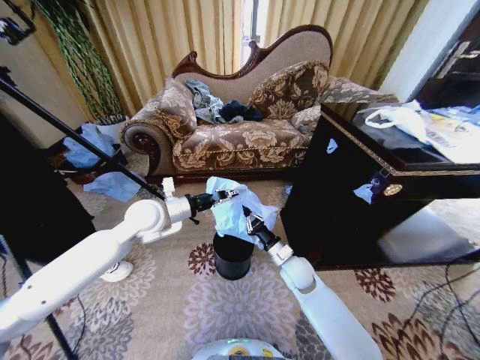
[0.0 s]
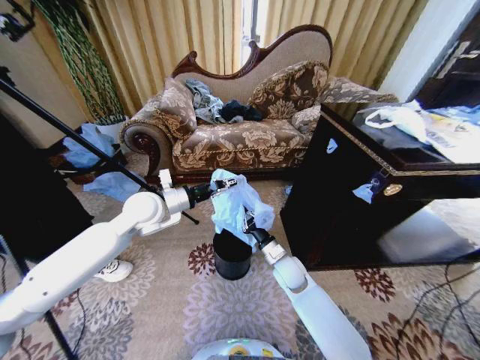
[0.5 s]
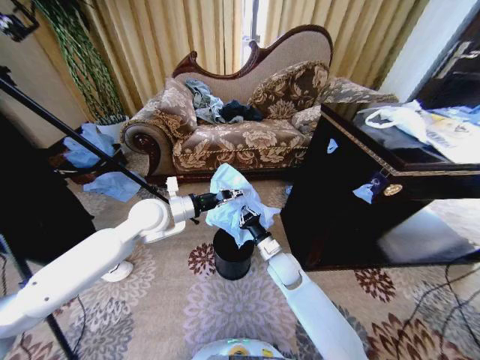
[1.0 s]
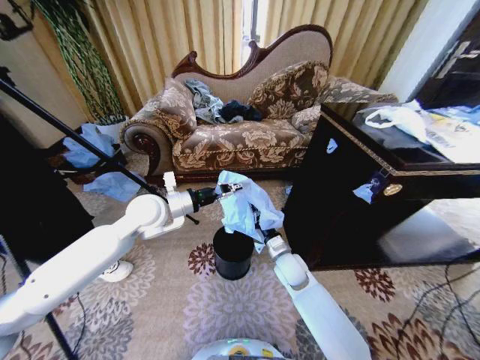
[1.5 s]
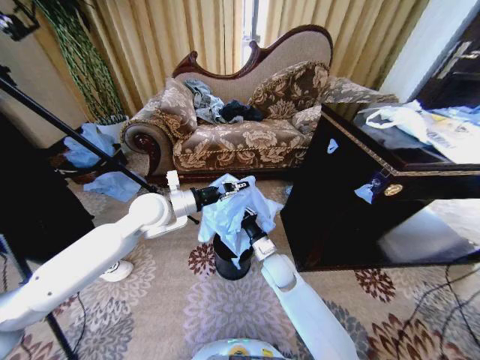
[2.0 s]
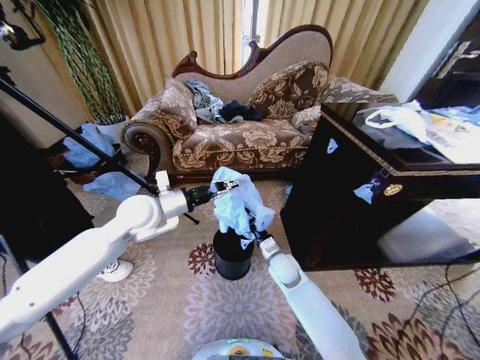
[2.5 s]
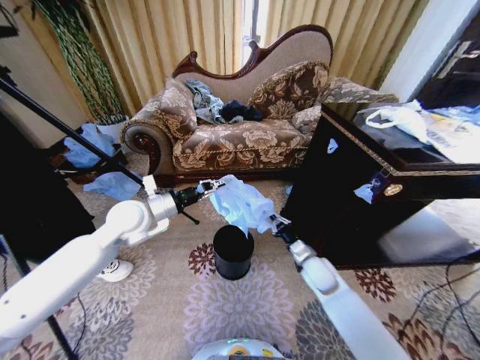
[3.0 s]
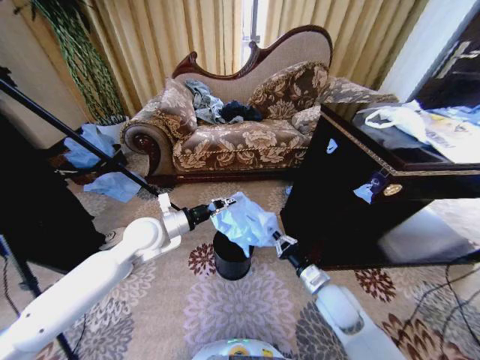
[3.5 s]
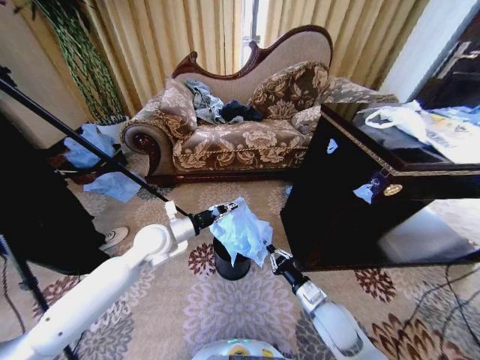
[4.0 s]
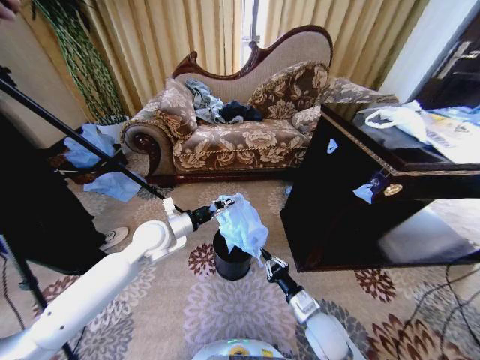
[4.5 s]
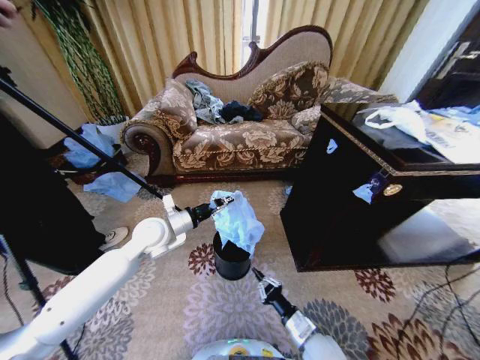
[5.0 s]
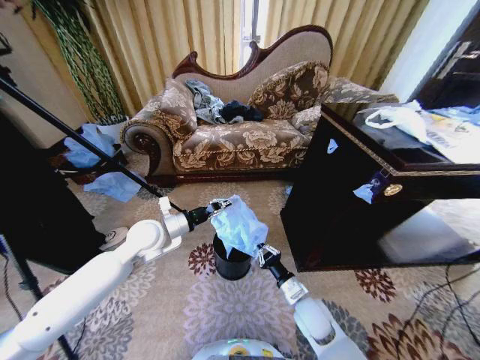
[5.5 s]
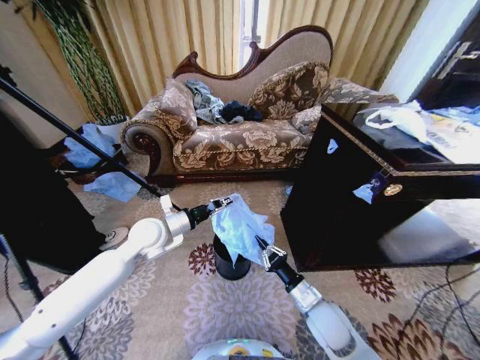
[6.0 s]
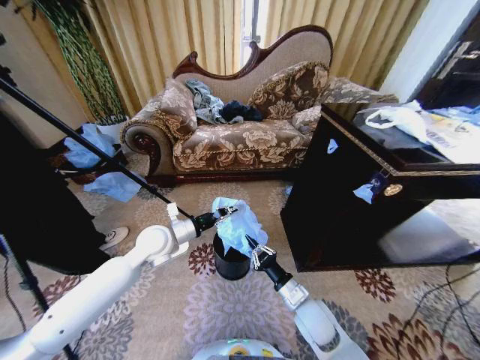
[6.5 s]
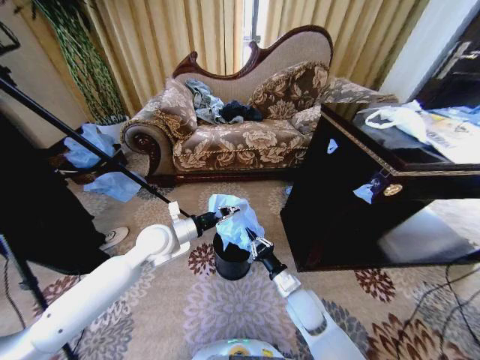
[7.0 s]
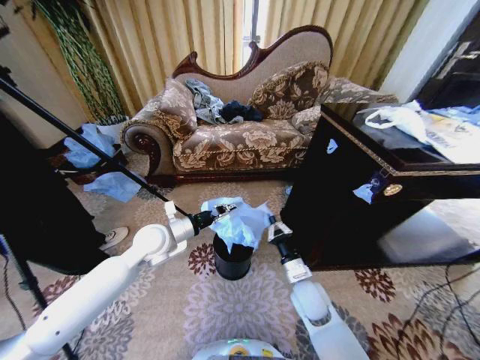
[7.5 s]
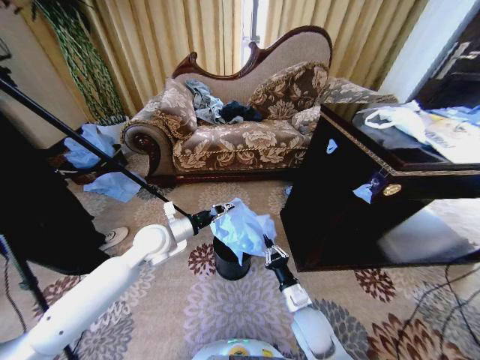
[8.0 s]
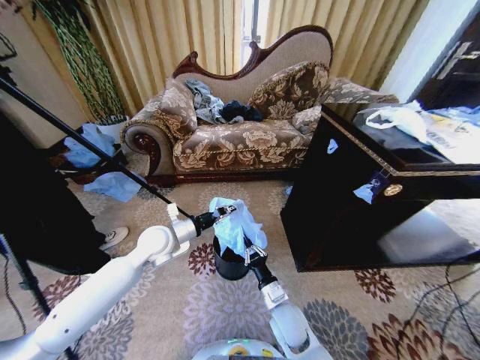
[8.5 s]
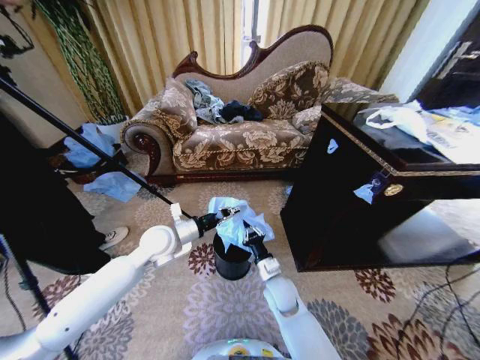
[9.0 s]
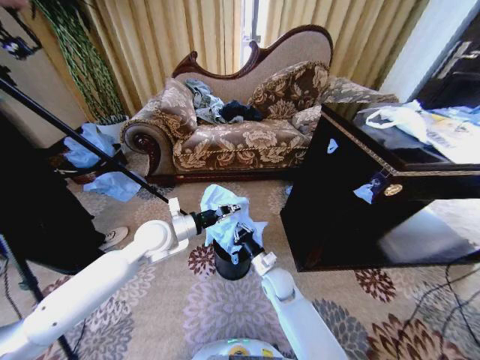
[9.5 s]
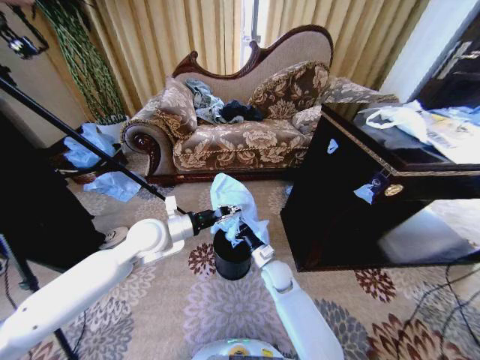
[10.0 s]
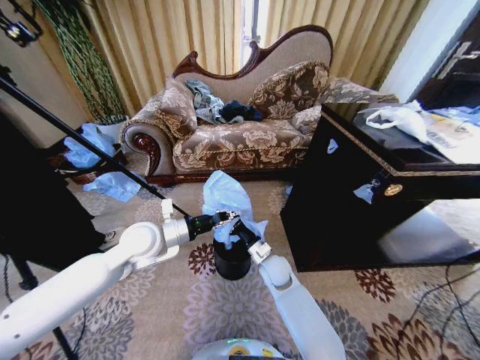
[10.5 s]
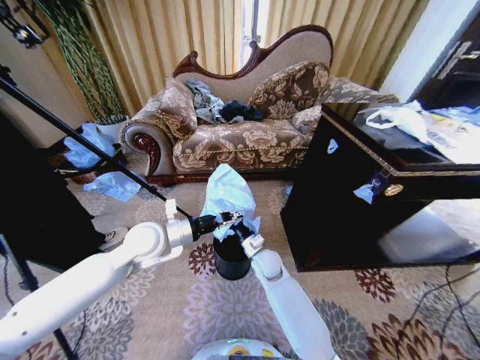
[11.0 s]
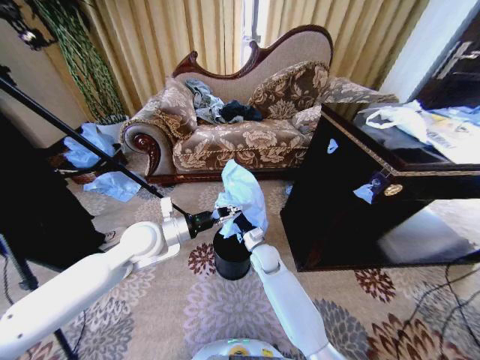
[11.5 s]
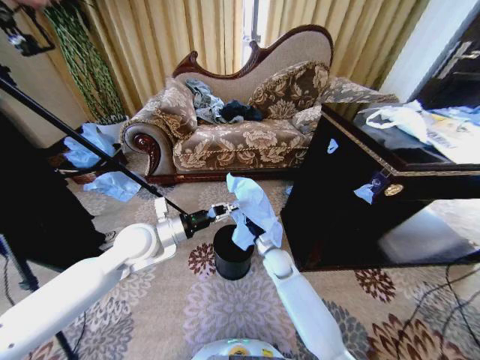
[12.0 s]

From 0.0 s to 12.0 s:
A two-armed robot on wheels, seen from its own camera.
Task of the whole recording: Place a garbage bag over the trash bin.
From 0.0 s to 2.0 s: The right gripper travels to the left by about 5 cm.
From 2.0 s to 4.0 s: The right gripper is displaced to the right and backward by roughly 20 cm; the left gripper shifts about 10 cm downward.
From 4.0 s to 6.0 s: The right gripper travels backward and back again, about 5 cm each way.
From 8.0 s to 10.0 s: The right gripper is displaced forward and to the left by about 15 cm.

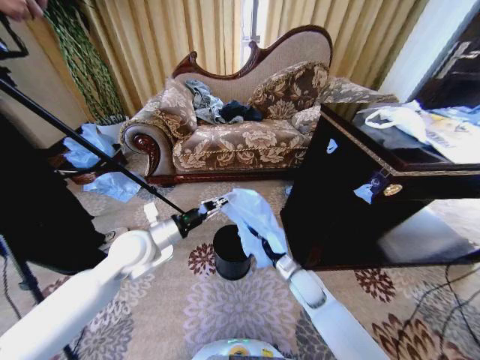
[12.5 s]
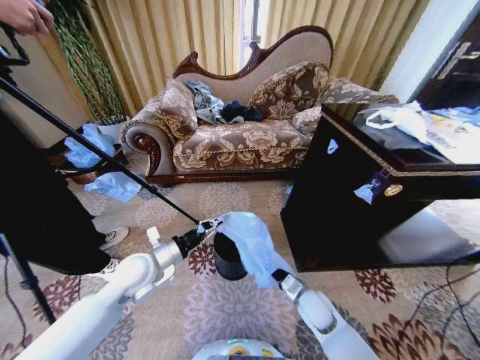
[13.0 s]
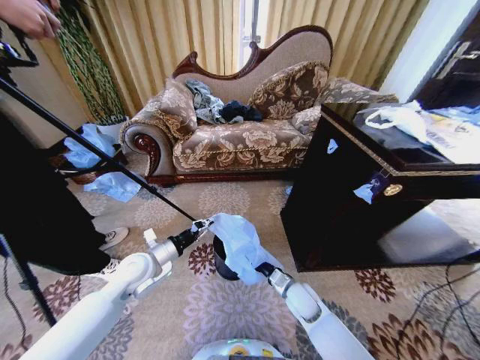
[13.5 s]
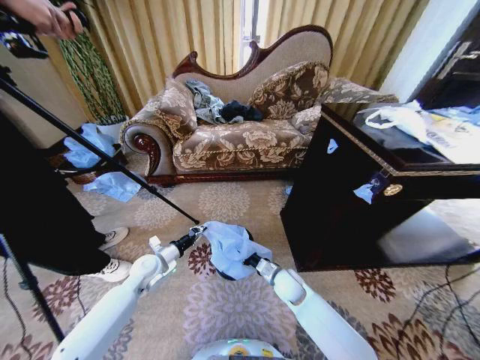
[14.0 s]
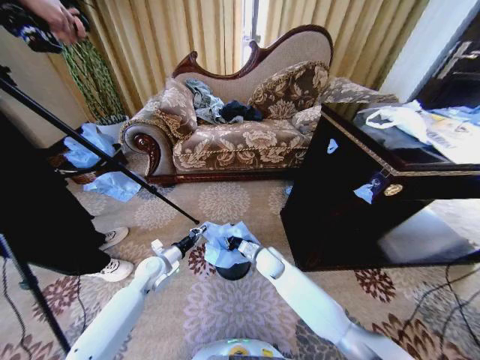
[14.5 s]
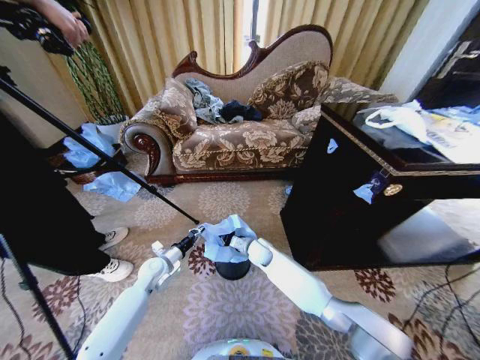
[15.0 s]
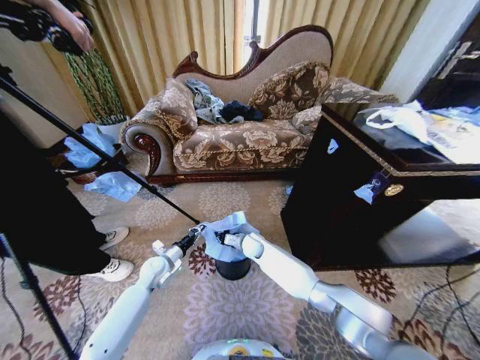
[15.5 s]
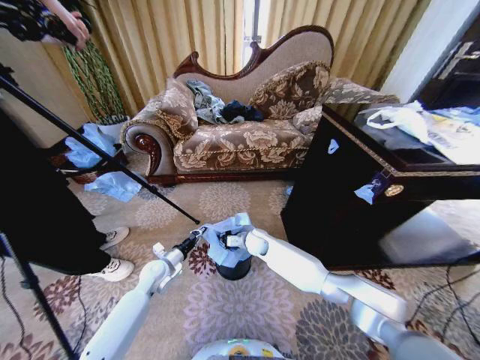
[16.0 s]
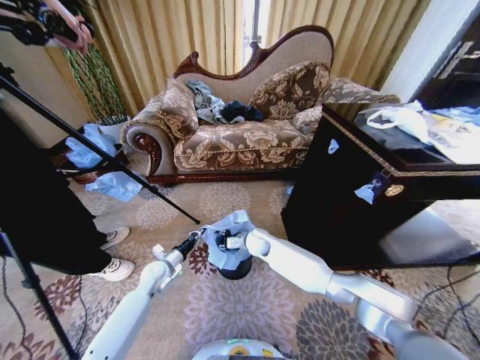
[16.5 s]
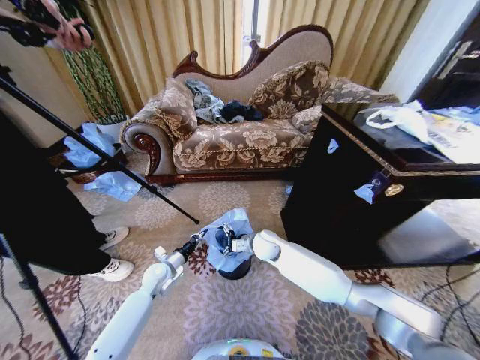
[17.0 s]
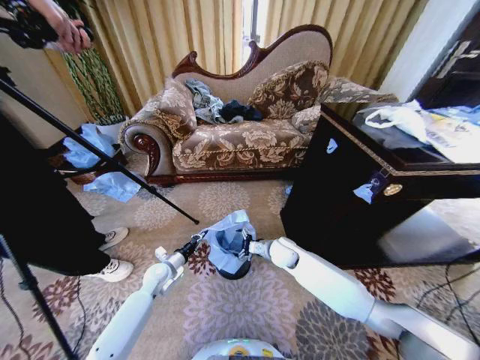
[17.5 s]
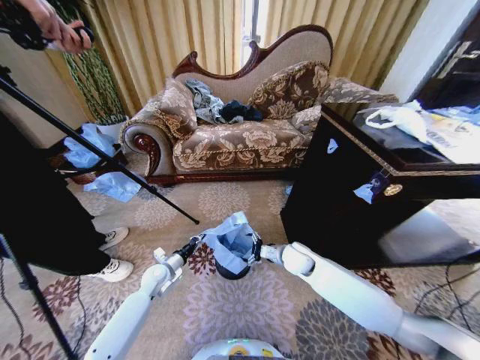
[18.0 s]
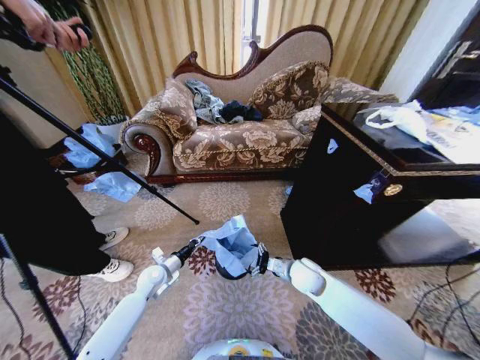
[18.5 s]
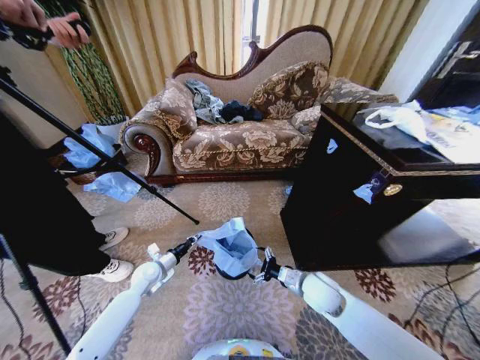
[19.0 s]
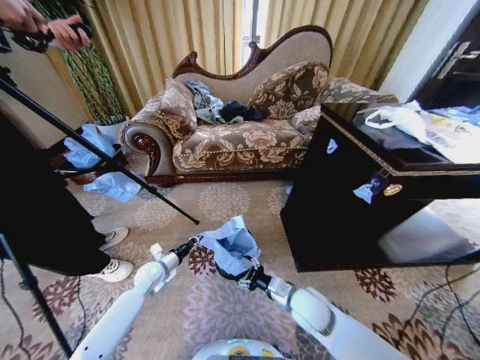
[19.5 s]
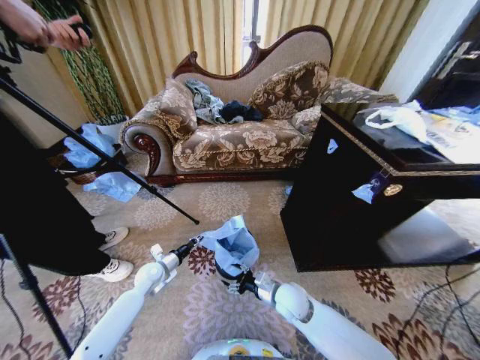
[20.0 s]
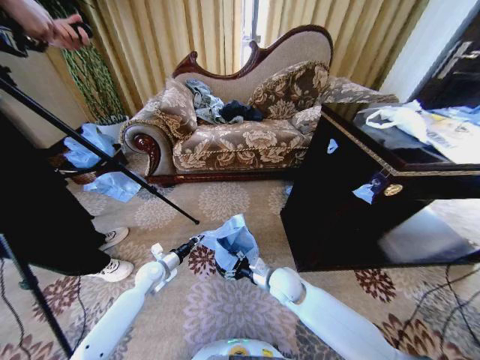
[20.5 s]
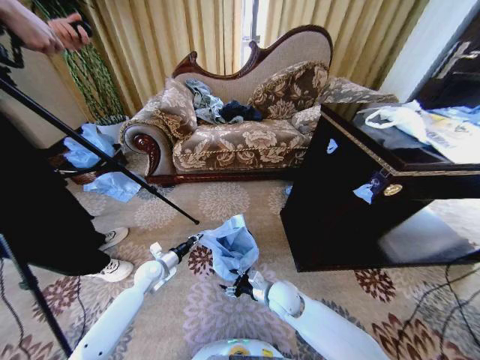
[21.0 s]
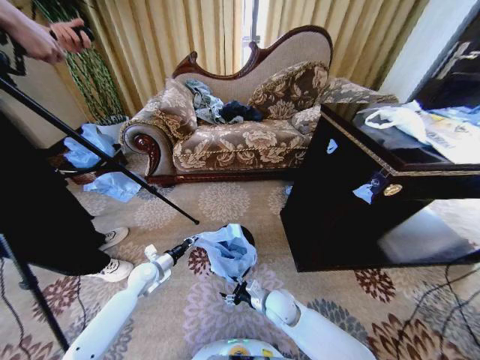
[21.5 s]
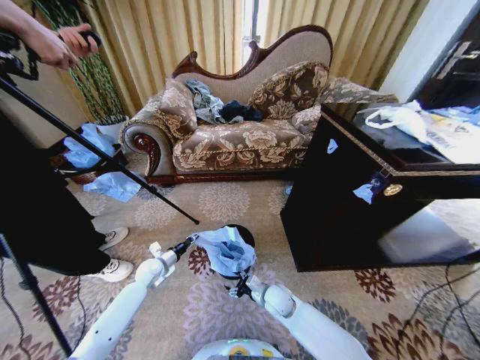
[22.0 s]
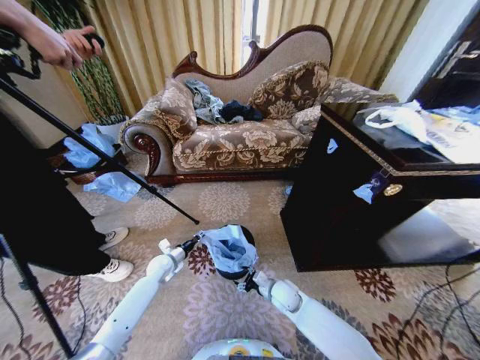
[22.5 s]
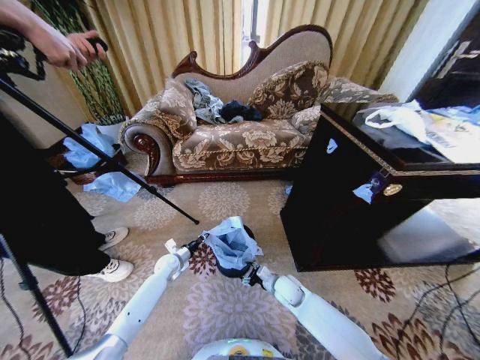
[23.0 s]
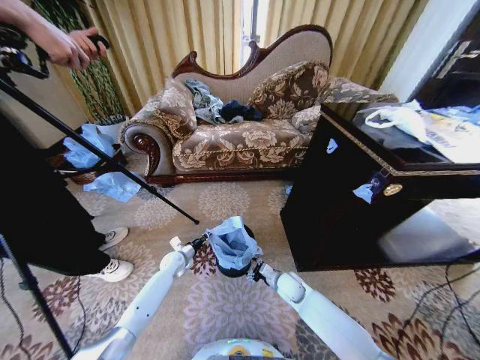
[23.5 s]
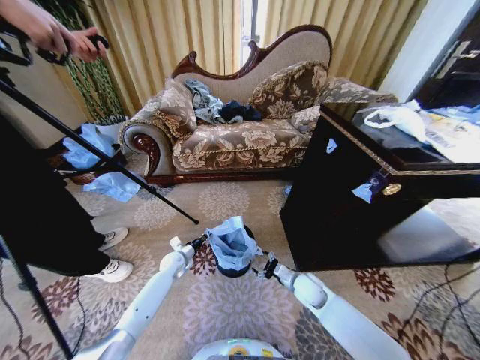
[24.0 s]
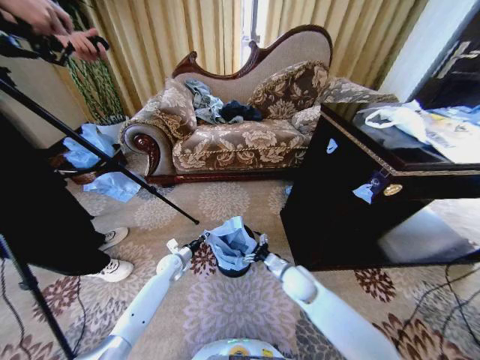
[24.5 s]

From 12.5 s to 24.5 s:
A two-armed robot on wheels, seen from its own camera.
Task of the whole recording: Place a garbage bag over the trash bin.
From 12.5 s to 14.5 s: The left gripper shifts about 20 cm downward. Meanwhile the right gripper moves to the left and forward, roughly 15 cm.
From 14.5 s to 16.5 s: The right gripper moves forward, approximately 5 cm, and opens.
From 16.5 s to 18.5 s: The right gripper is displaced to the right and backward by approximately 20 cm, and opens up.
From 18.5 s to 20.5 s: The right gripper moves to the left, roughly 5 cm.
From 20.5 s to 22.5 s: The right gripper goes roughly 10 cm downward. The left gripper ends up approximately 5 cm from where it was.
From 22.5 s to 24.5 s: The right gripper travels upward by roughly 10 cm.

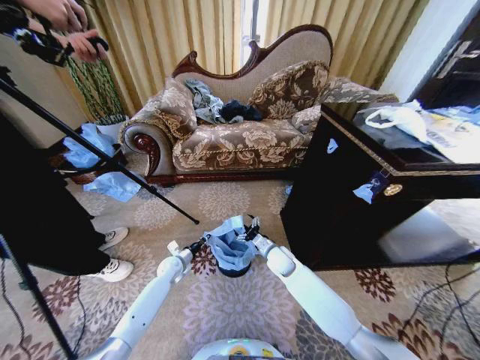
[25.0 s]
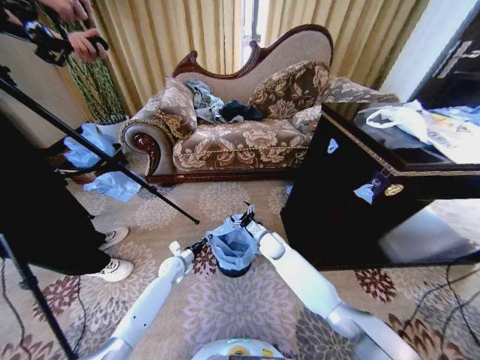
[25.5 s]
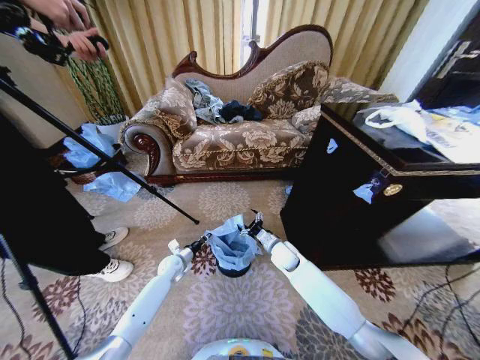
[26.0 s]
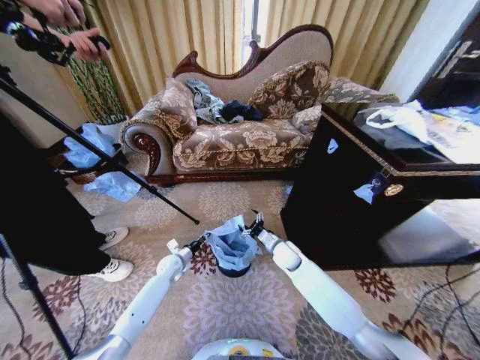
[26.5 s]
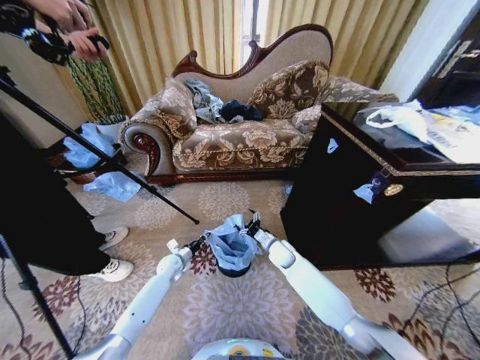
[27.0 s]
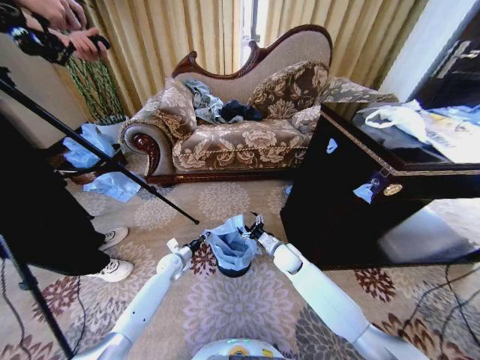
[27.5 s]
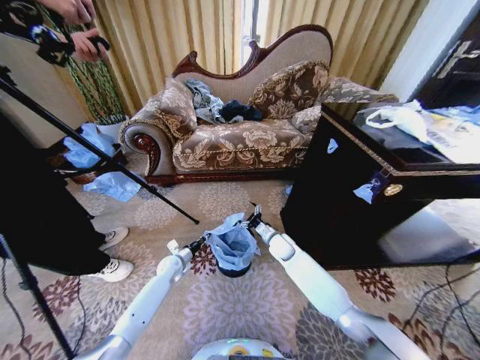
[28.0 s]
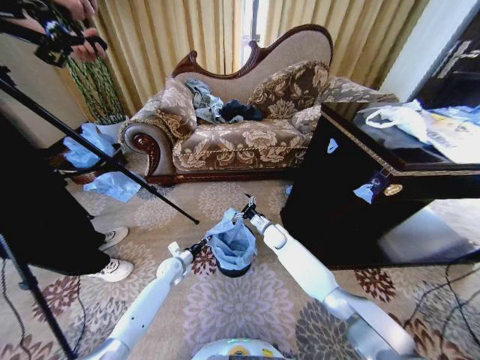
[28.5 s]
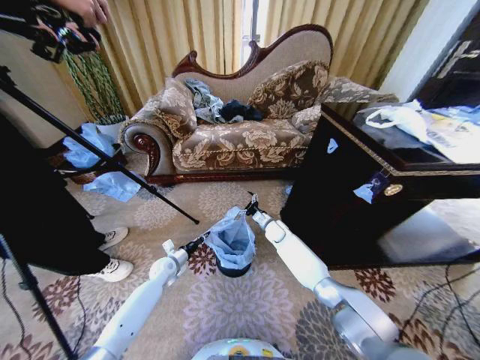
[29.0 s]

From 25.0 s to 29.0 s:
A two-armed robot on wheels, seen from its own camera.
Task of the whole recording: Place a garbage bag over the trash bin.
From 25.0 s to 27.0 s: The grippers stay close to where they were, moving slightly.
From 27.0 s to 29.0 s: The right gripper is displaced forward by approximately 10 cm.
